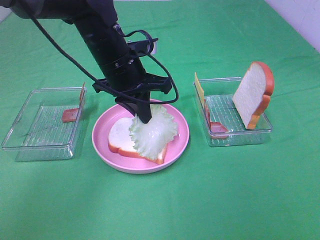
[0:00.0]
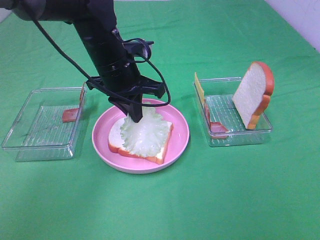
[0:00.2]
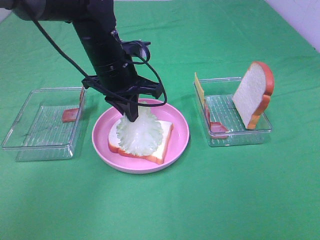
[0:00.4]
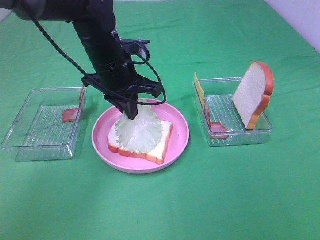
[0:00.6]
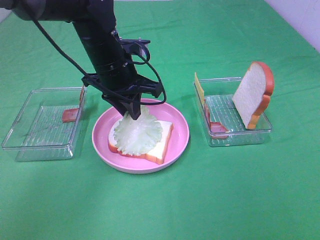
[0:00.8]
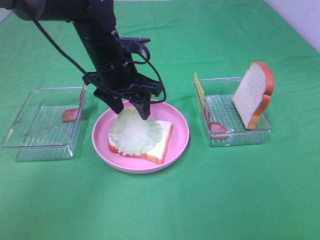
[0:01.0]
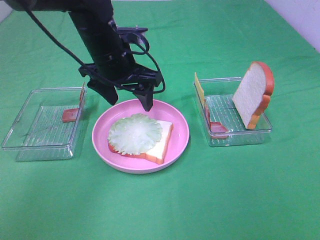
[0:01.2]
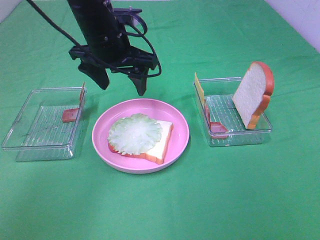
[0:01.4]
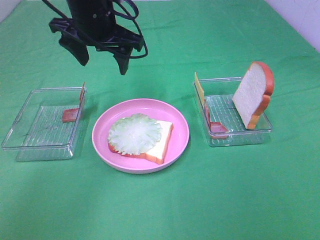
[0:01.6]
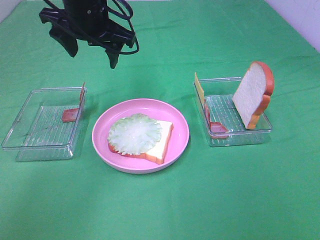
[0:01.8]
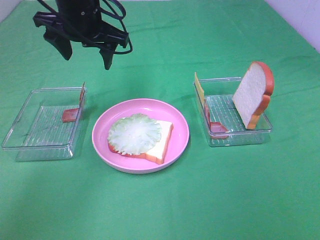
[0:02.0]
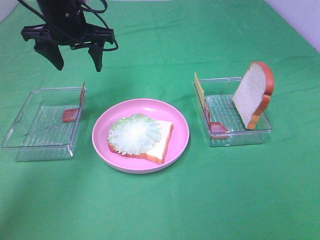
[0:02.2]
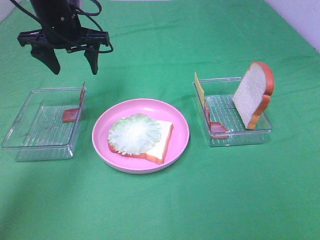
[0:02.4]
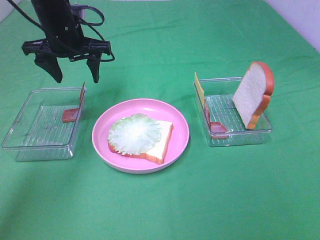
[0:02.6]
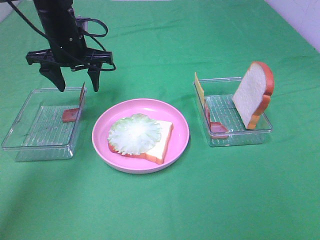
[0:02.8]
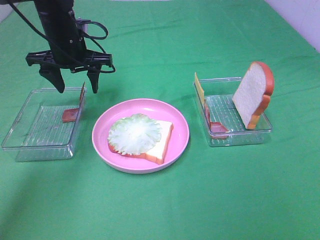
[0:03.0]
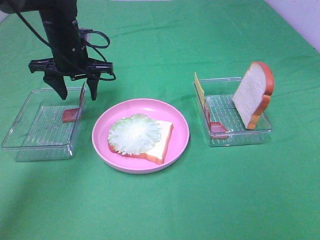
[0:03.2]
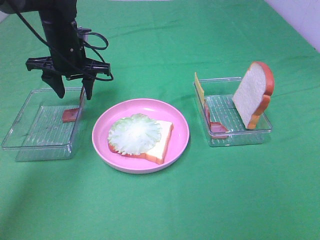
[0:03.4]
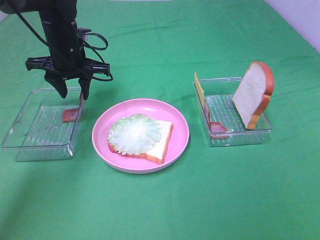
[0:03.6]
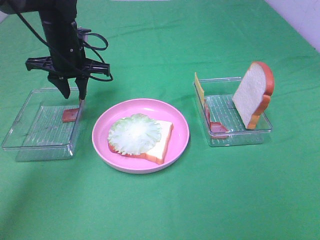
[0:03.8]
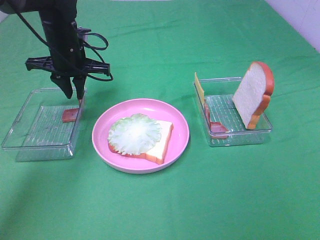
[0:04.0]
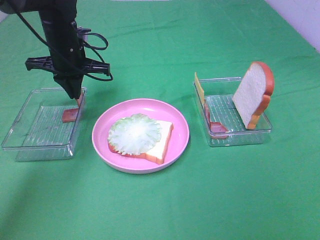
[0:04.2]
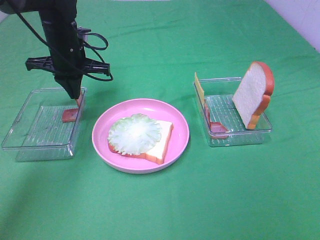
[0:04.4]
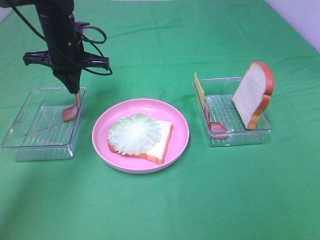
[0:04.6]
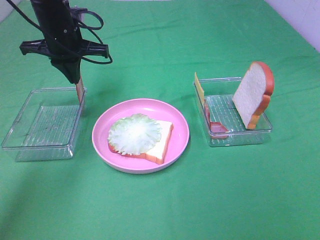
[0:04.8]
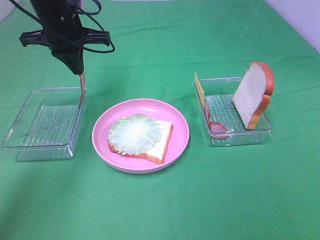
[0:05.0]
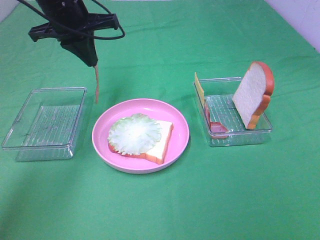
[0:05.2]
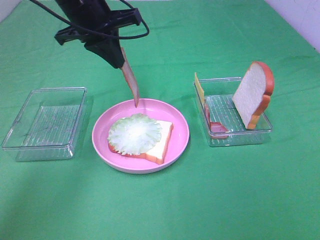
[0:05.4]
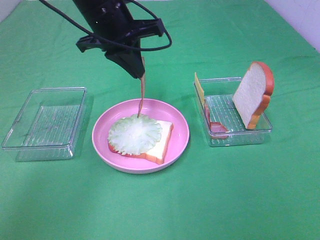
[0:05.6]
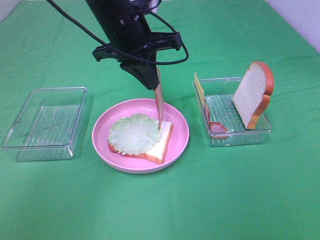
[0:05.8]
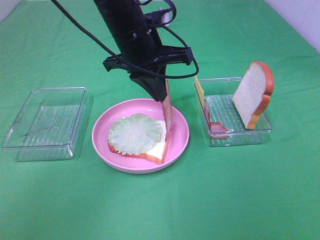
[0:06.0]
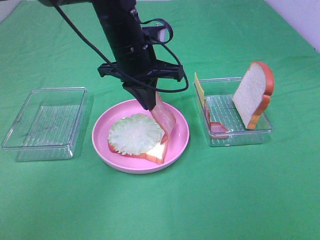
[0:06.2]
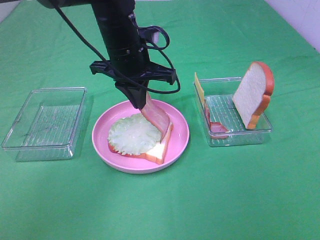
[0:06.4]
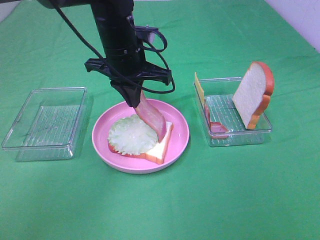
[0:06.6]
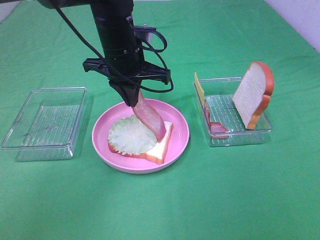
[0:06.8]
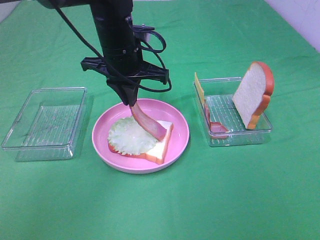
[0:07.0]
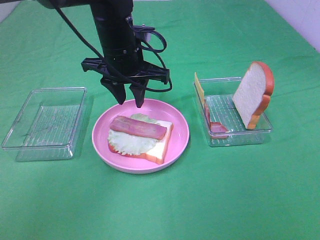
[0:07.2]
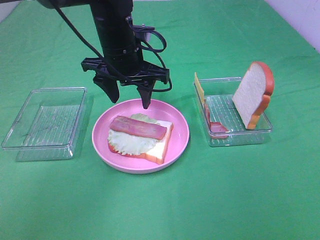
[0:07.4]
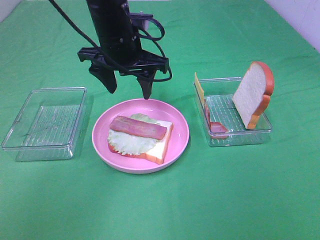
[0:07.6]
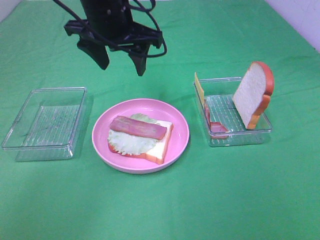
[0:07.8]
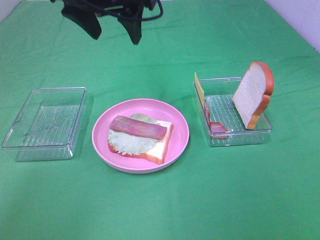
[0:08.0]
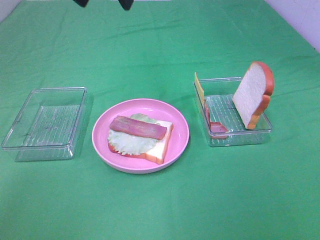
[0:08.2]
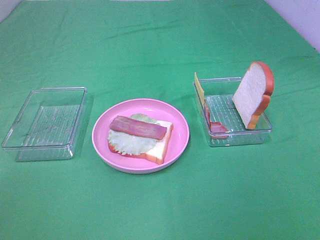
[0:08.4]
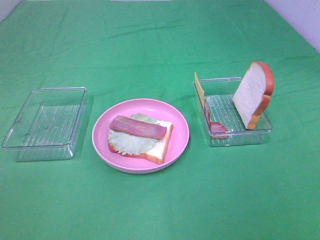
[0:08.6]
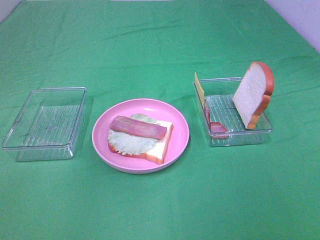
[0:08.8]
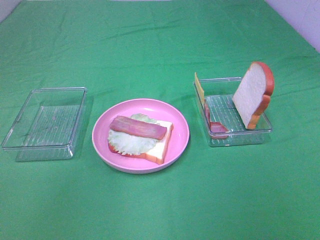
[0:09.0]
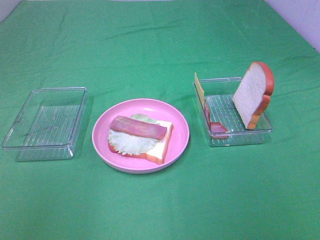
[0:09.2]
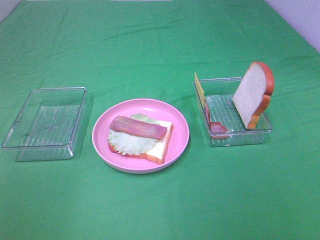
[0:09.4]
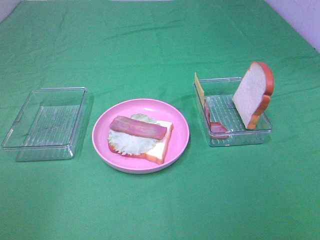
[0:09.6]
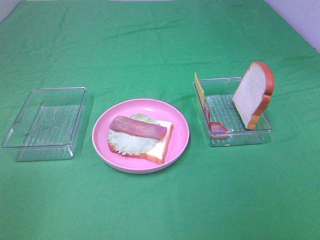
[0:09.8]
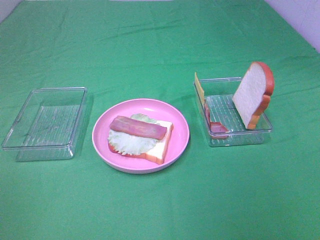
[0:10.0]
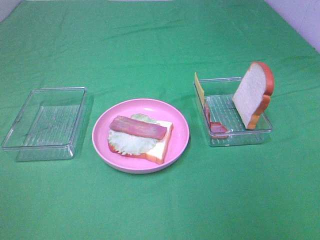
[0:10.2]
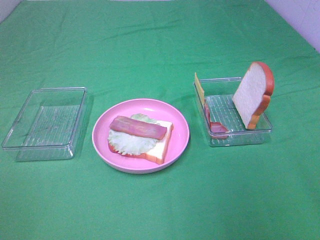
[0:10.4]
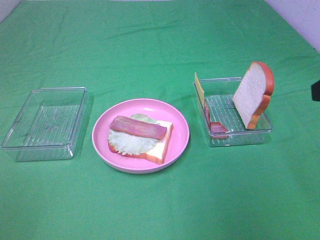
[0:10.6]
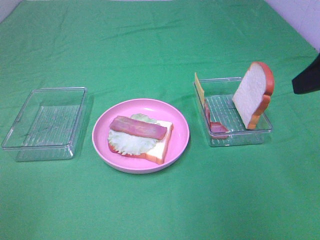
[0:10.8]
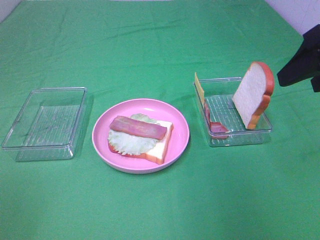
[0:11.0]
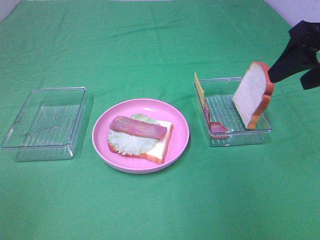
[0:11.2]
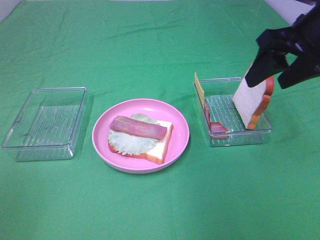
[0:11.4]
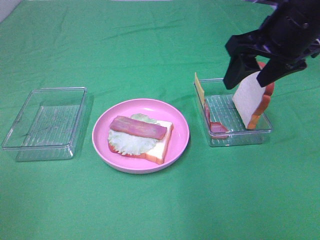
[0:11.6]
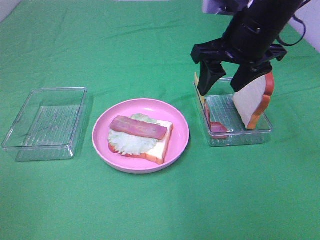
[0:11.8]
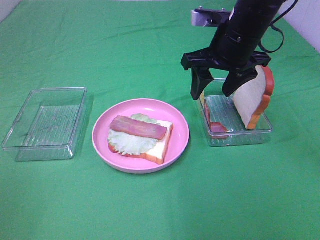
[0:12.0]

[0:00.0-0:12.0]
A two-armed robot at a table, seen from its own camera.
Task of the whole recording: Make sandwiches.
Step, 0:01.4 to 0:04.4: Left hand:grab the bacon.
Step, 0:04.6 to 0:07.4: Left hand:place bacon on lettuce slice.
0:00.0 to 0:01.6: The left gripper shifts approximately 10 cm upward, and opens up.
0:01.6 to 0:03.0: The left gripper heads downward and to the left, covering roughly 10 cm.
0:03.0 to 0:04.4: The left gripper closes.
0:04.4 to 0:06.0: The left gripper shifts some 15 cm to the right, backward and upward.
0:06.0 to 0:07.6: The left gripper opens up.
0:07.6 to 0:09.0: The left gripper heads backward, upward and to the left, covering approximately 35 cm.
0:09.0 to 0:10.4: The left gripper is displaced backward, downward and to the left by some 25 cm.
0:10.4 to 0:12.0: The right gripper is displaced forward and to the left by roughly 30 cm.

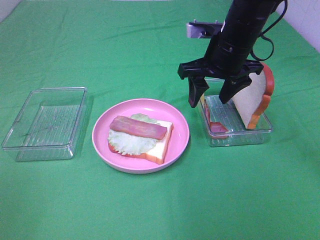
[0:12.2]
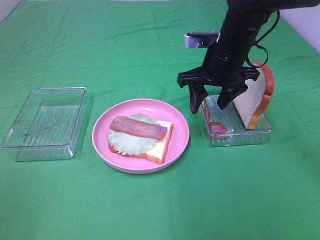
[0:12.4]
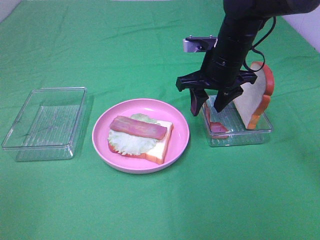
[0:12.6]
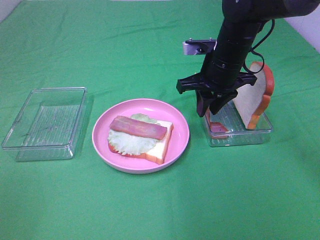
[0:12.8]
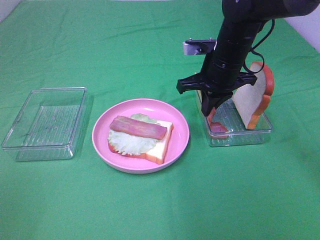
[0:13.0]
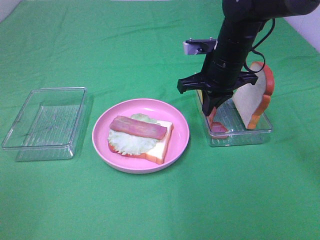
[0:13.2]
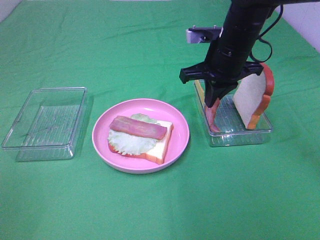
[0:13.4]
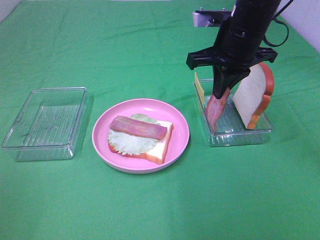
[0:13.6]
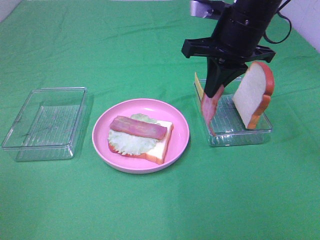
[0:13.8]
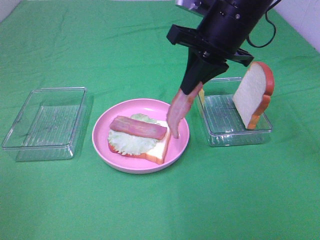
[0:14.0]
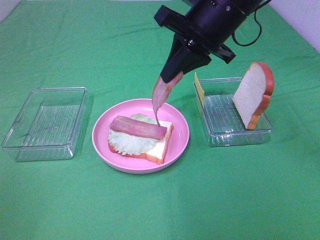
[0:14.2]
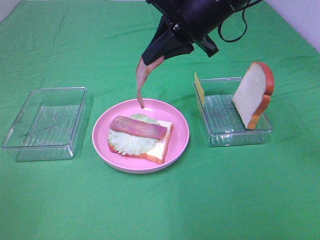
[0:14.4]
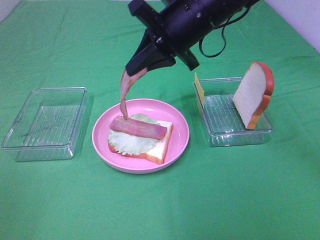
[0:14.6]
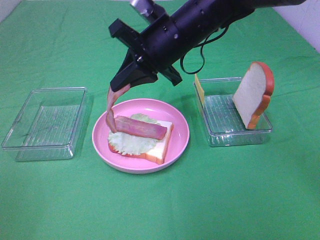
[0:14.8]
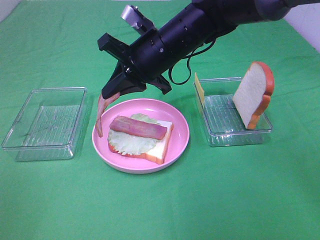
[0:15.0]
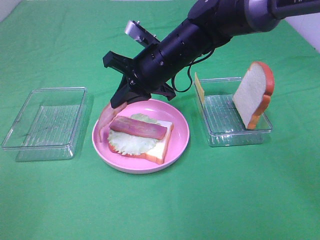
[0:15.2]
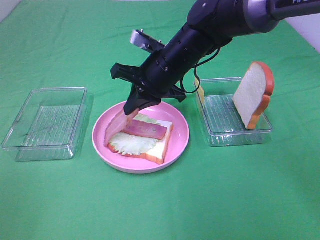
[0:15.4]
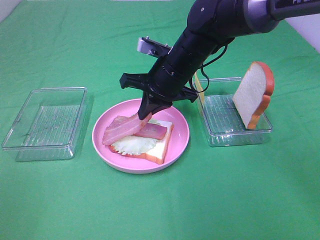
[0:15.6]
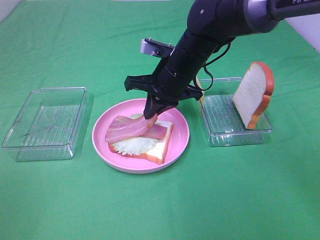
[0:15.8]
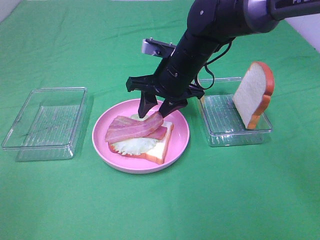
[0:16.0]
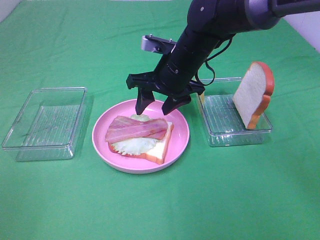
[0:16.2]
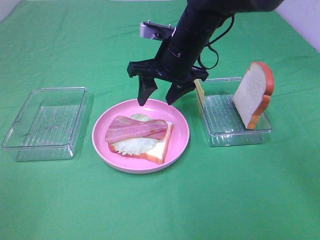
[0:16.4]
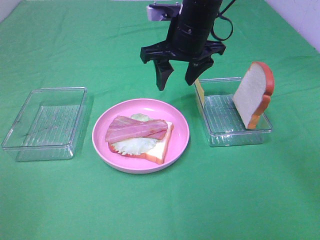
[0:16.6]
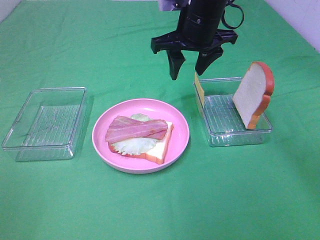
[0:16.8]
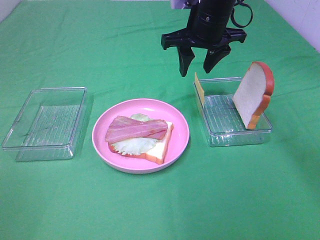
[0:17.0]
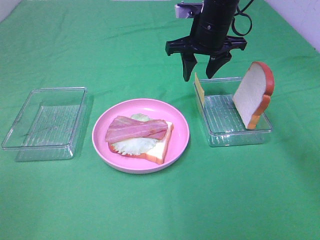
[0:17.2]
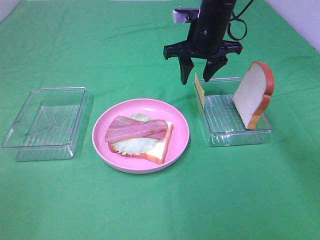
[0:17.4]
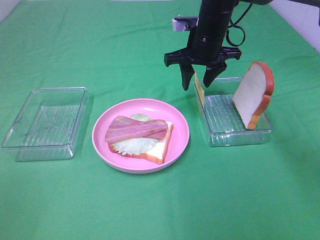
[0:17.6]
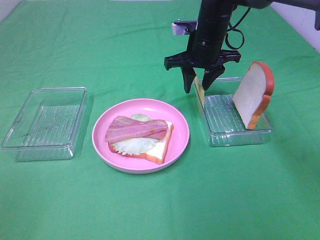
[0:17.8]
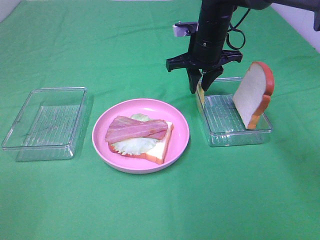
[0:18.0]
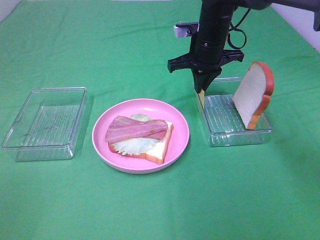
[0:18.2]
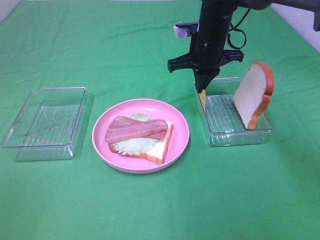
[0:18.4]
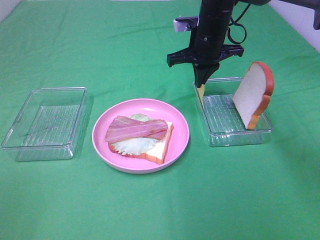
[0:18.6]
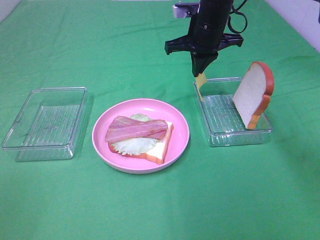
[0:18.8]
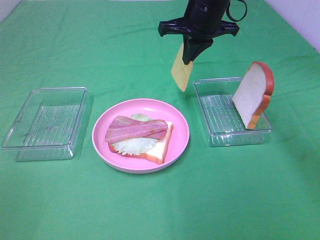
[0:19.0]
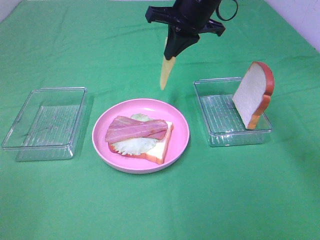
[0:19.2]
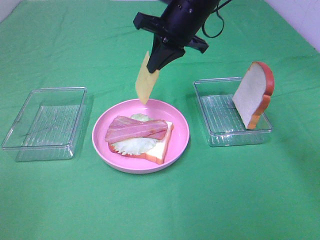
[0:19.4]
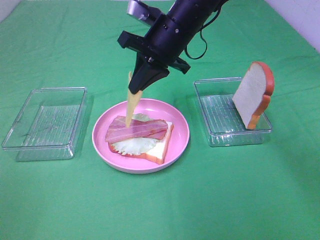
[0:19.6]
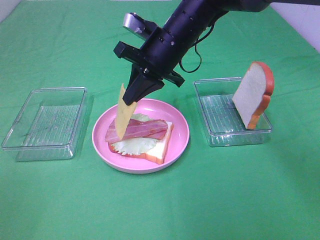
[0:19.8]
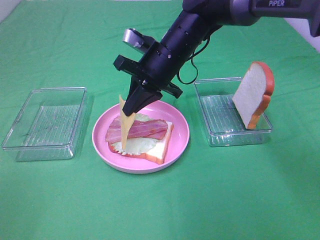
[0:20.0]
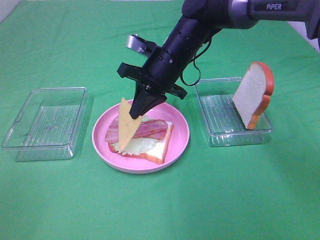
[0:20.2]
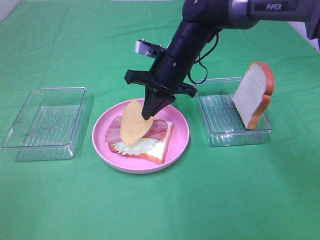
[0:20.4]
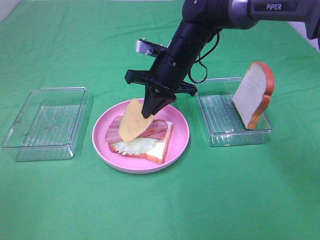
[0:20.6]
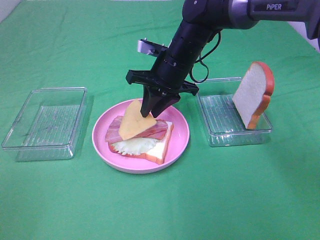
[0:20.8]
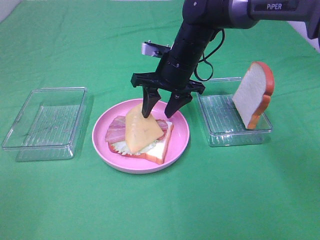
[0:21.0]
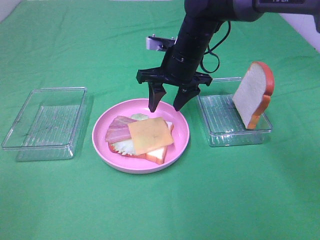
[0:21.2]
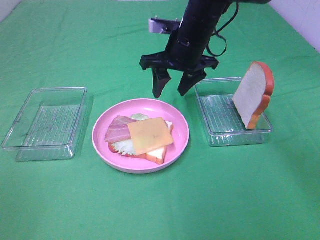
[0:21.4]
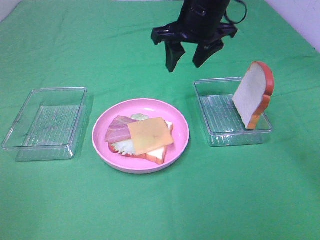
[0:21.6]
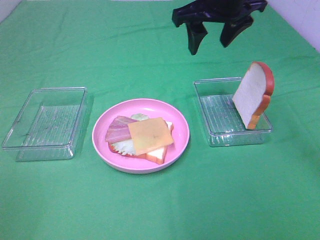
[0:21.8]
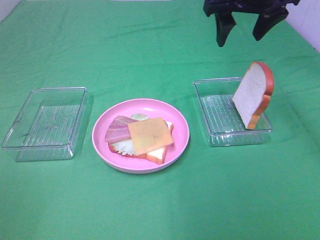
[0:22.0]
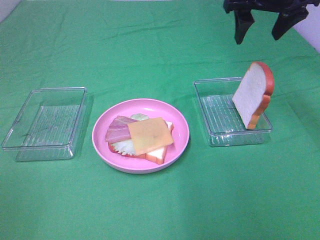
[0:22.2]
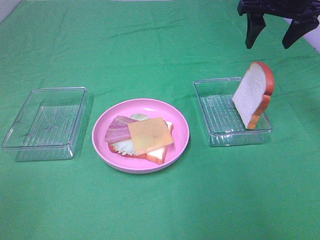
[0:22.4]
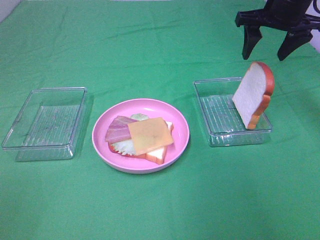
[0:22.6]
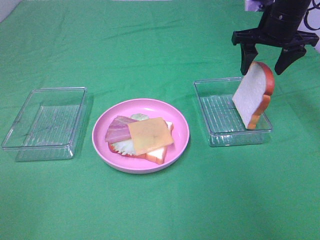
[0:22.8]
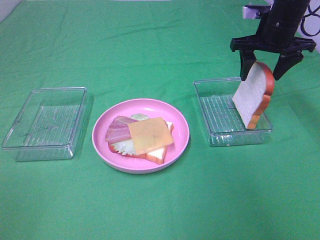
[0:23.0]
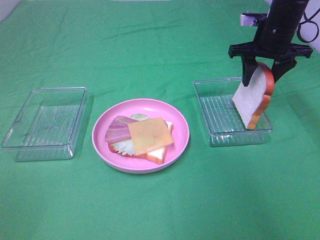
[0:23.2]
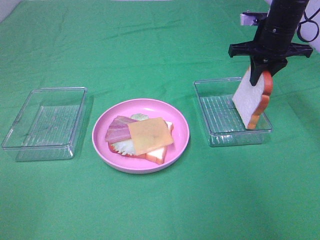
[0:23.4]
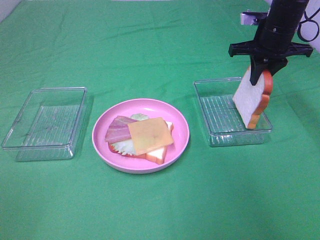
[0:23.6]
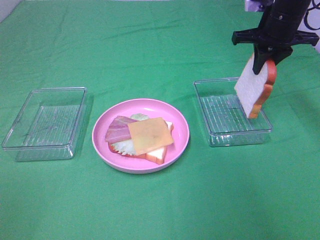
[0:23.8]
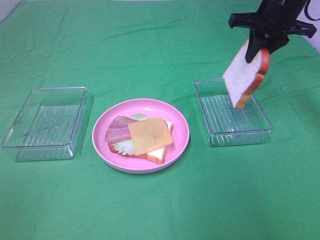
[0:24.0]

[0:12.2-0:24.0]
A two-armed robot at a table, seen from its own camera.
Task of the whole recording: Make sandwiches.
Step, 0:13.4 to 0:16.2: Right hand:place bacon on bacon.
Step, 0:16.4 to 0:18.4: Right hand:grab the cheese slice.
Step, 0:18.6 to 0:21.0: Right hand:place the cheese slice on top of the bacon.
Step, 0:21.2 to 0:23.6: Right hand:grab the bread slice.
0:12.2 to 0:13.6: The right gripper closes.
0:13.6 to 0:15.2: The right gripper moves to the left and downward, roughly 15 cm.
0:15.2 to 0:16.6: The right gripper goes about 5 cm upward, and opens its fingers.
0:16.6 to 0:18.2: The right gripper goes about 10 cm forward and downward, and closes its fingers.
0:18.2 to 0:19.6: The right gripper moves to the left and backward, roughly 10 cm.
0:19.6 to 0:21.0: The right gripper shifts approximately 5 cm downward, and opens its fingers.
0:21.0 to 0:22.6: The right gripper is displaced to the right and upward by roughly 20 cm.
0:22.6 to 0:24.0: The right gripper closes up.
